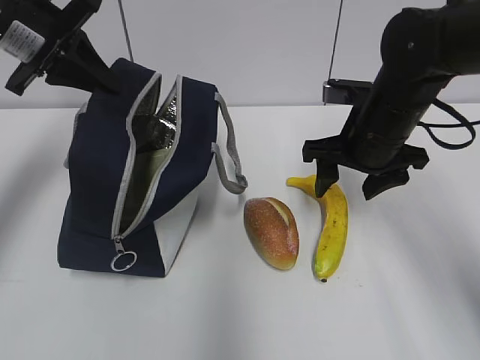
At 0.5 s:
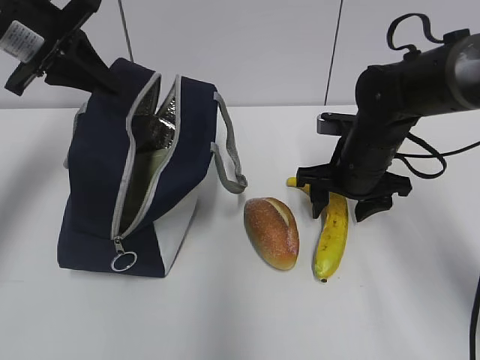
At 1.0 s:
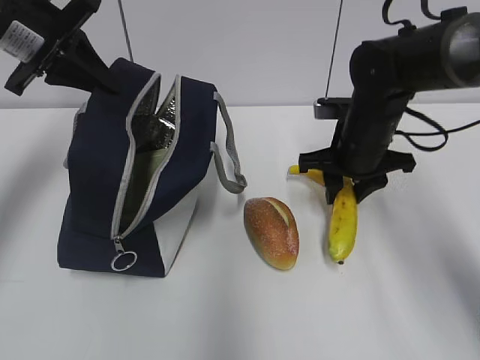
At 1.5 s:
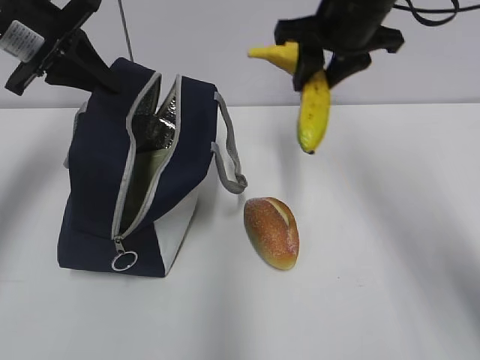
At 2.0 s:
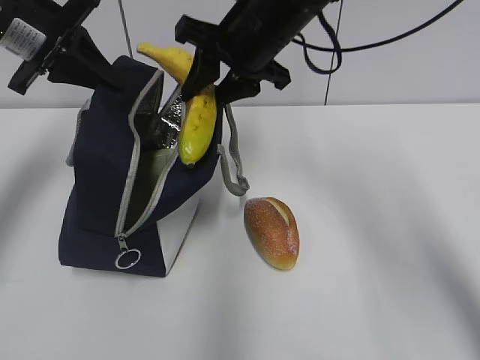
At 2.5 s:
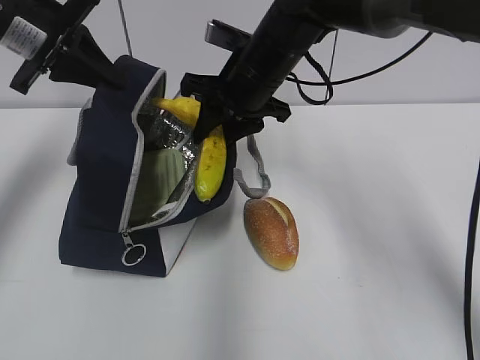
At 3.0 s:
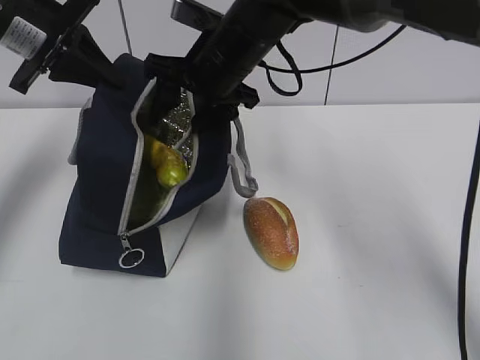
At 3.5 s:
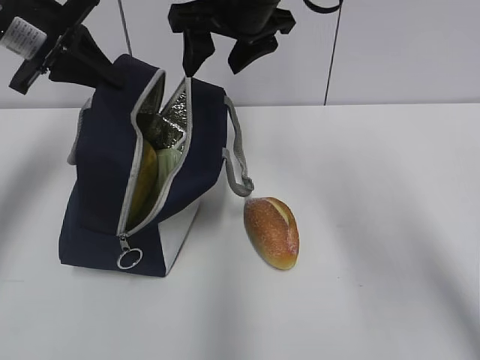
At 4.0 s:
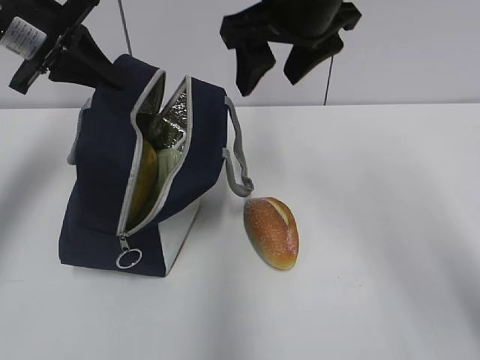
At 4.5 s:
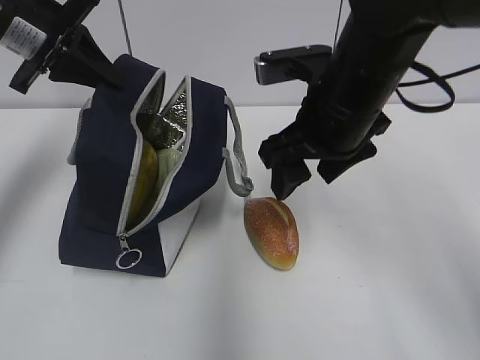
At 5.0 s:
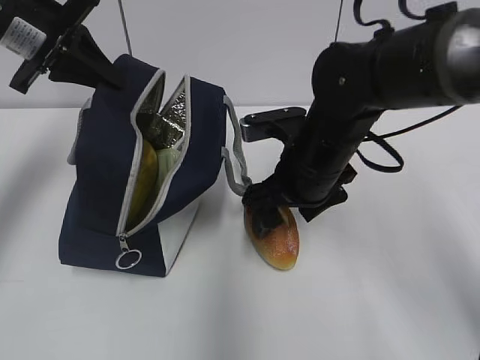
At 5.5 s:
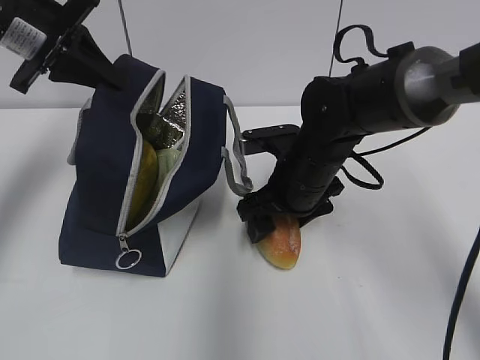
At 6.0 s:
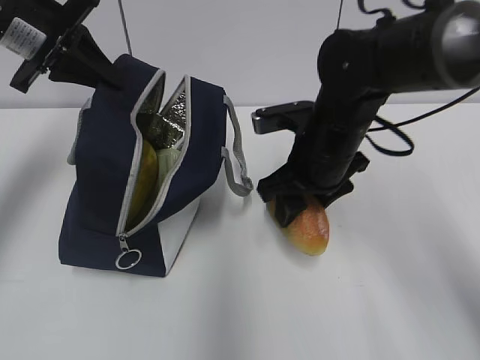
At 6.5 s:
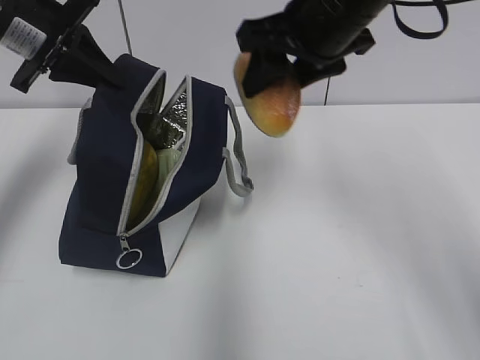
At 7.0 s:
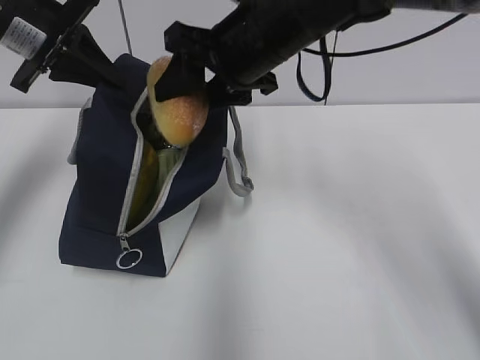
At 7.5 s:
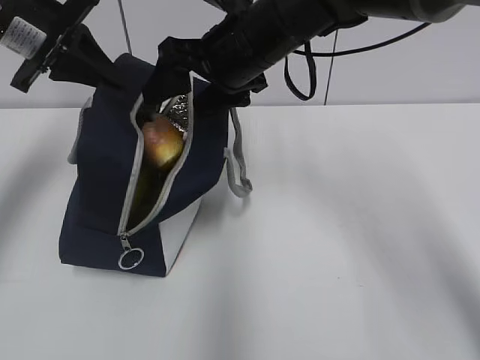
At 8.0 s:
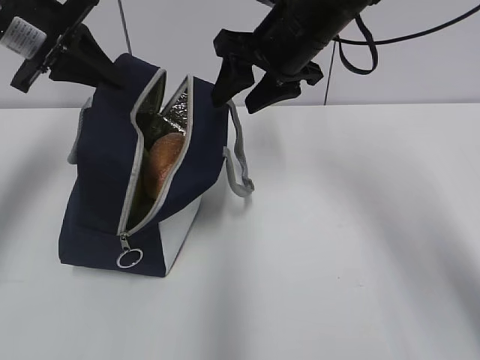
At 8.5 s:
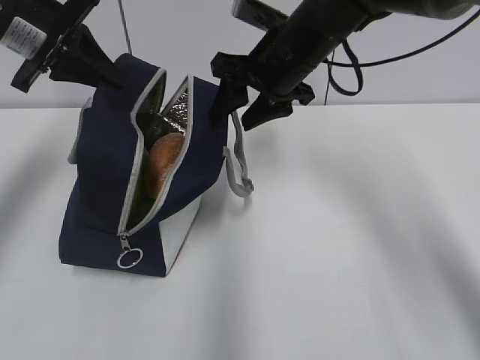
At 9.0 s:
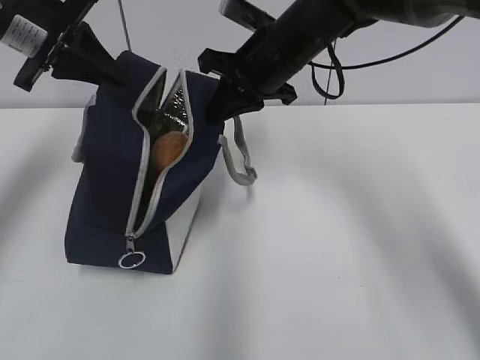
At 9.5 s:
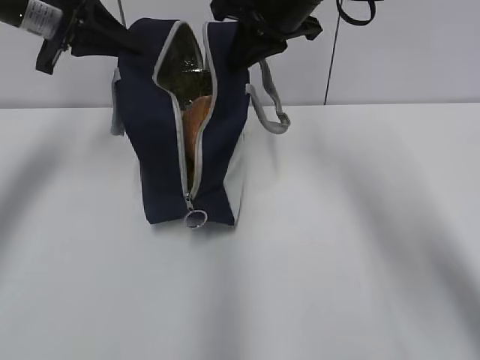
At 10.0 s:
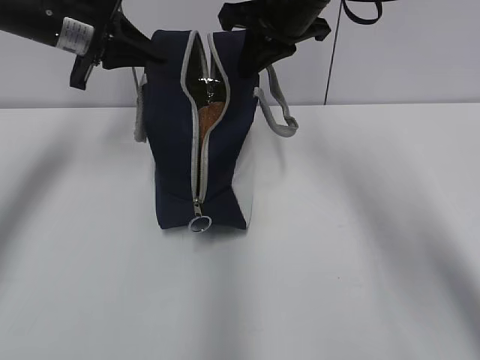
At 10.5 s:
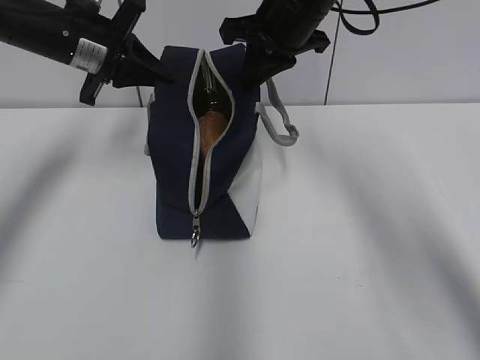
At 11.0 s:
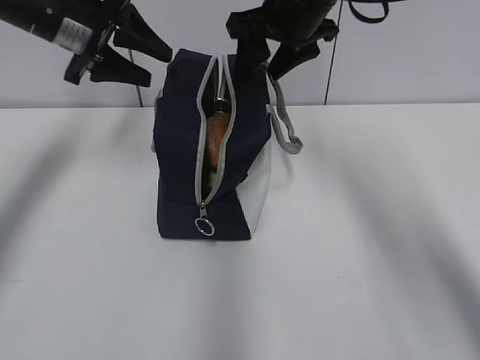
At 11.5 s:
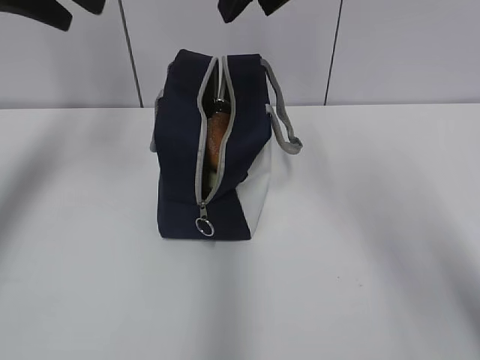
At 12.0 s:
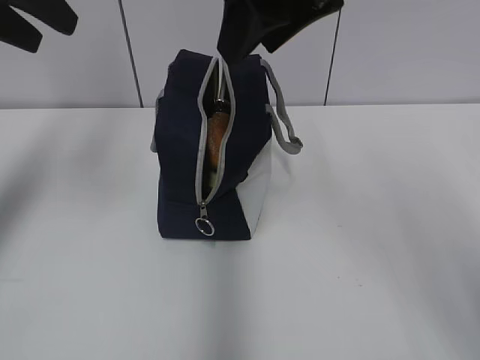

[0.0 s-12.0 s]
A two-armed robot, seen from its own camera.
Step, 1.0 to 3.0 s: Place it into the bag with your right hand.
Step, 3.5 to 5.5 s: Grab the bread with your right hand.
Step, 8.0 to 8.5 s: Grab the lunch bag with your right hand.
Step, 9.0 to 10.5 s: Move the lunch bag to the right.
0.0 to 2.0 s: The right gripper travels to the left, upward and forward by approximately 15 cm, and closes its fingers.
2.0 to 4.0 s: The right gripper moves upward, roughly 5 cm, and opens up.
4.0 to 6.0 s: The right gripper moves downward, about 15 cm.
6.0 to 8.0 s: The right gripper moves upward and forward, some 10 cm.
8.0 to 10.0 s: The right gripper closes.
10.0 to 12.0 s: The two grippers go roughly 15 cm backward and upward. The right gripper opens. Meanwhile the left gripper opens.

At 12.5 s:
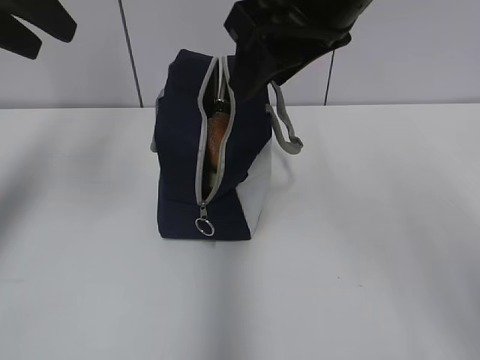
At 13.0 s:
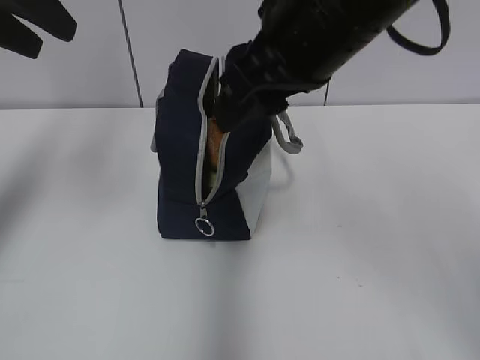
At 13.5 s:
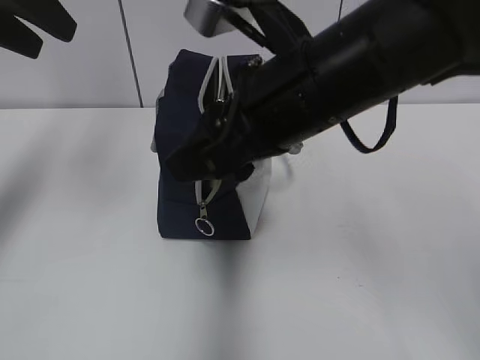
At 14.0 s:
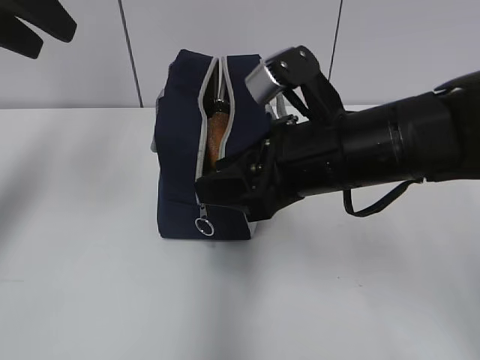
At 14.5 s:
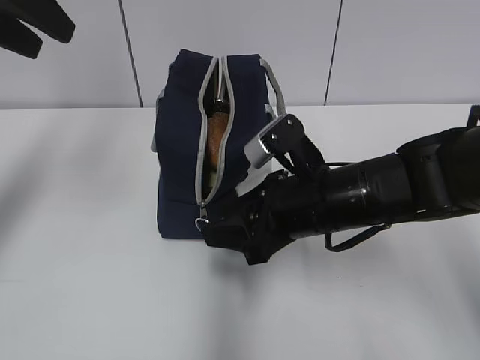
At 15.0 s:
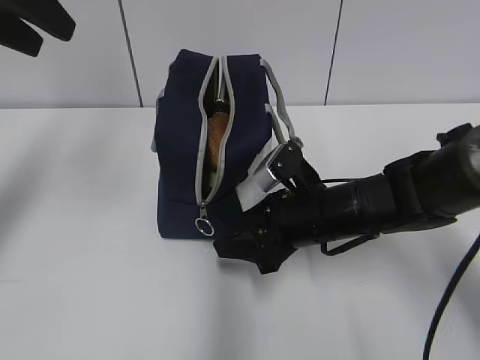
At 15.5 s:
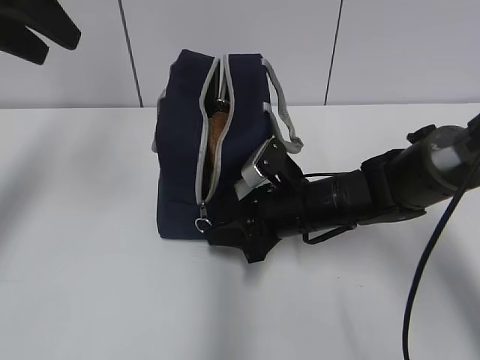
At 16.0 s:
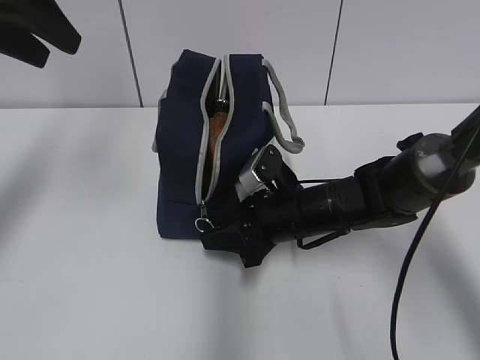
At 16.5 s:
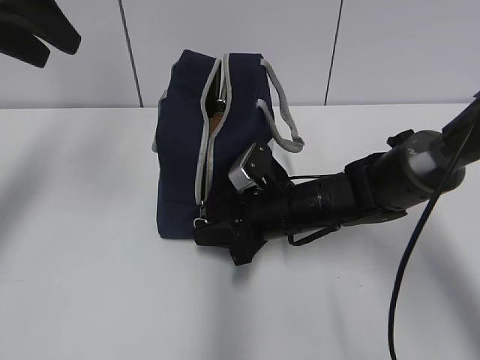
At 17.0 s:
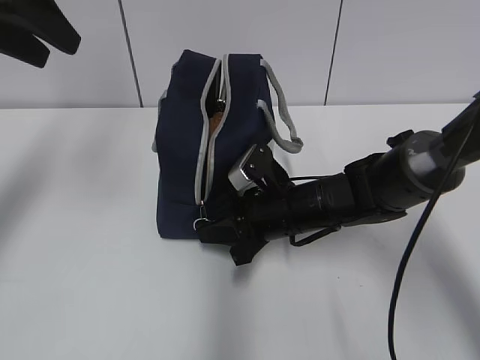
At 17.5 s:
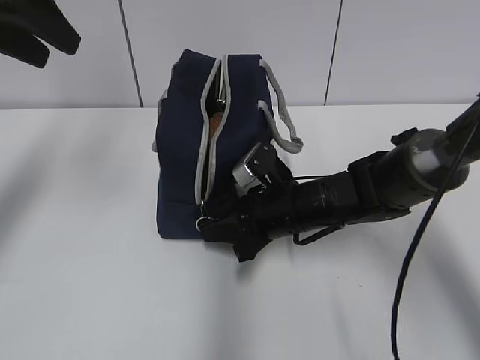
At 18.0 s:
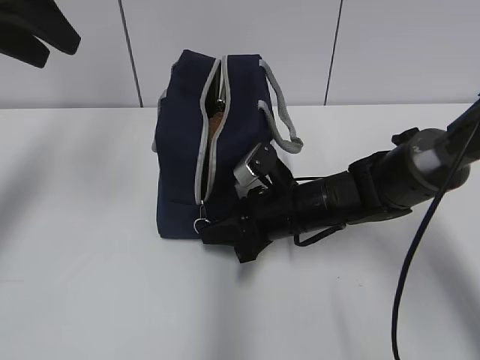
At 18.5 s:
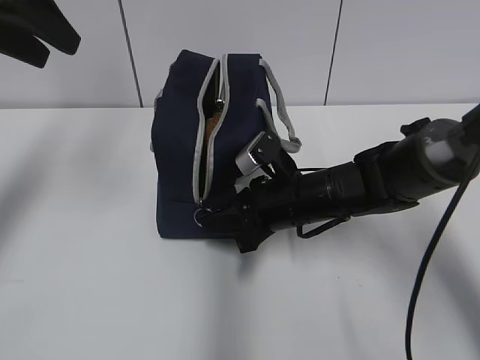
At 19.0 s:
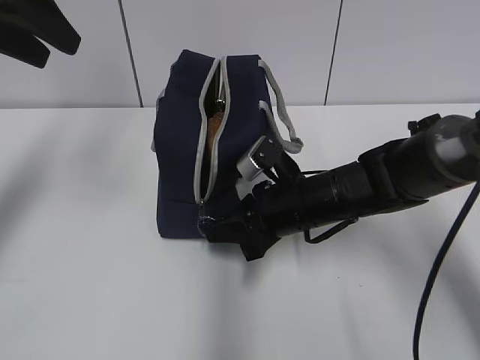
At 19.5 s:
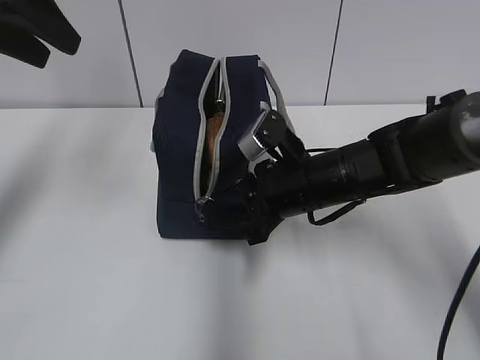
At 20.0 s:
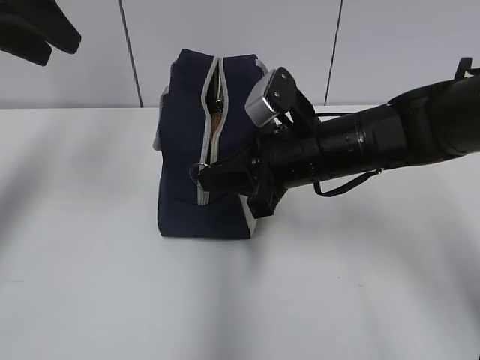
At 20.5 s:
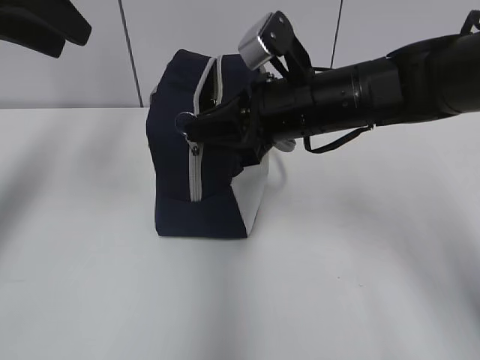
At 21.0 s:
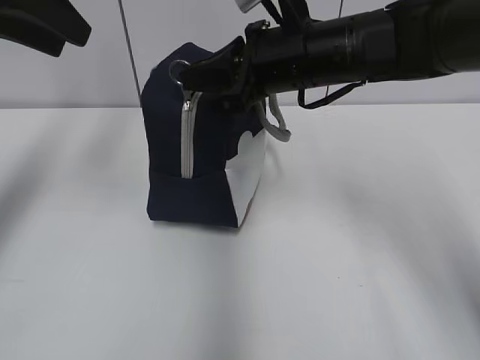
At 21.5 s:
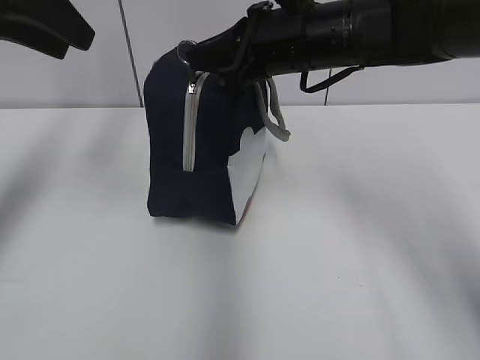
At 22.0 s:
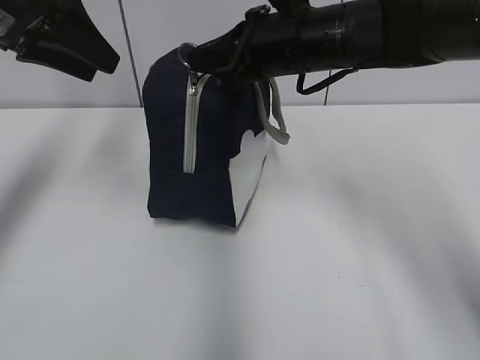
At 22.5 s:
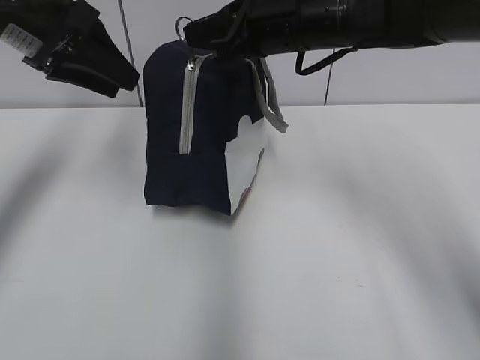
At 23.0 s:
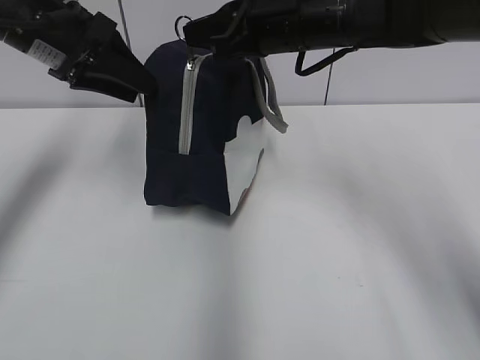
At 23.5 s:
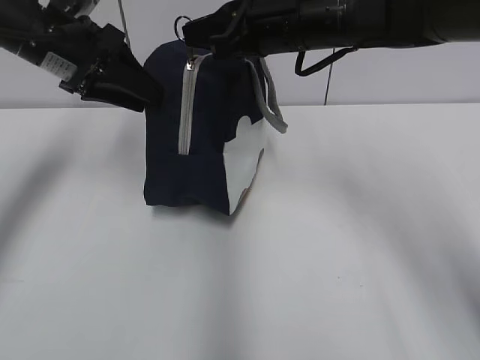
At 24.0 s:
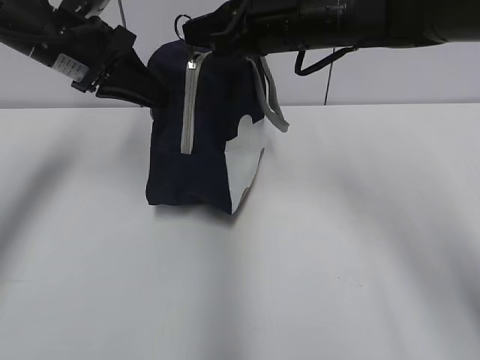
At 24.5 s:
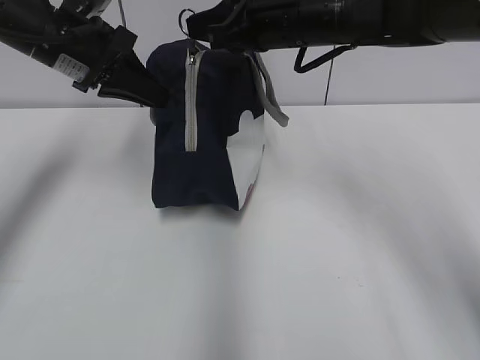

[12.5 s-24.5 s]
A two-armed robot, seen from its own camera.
12.5 to 14.5 s: The right gripper heads downward, covering approximately 20 cm.
14.5 to 16.5 s: The right gripper goes about 10 cm downward and forward.
16.5 to 18.5 s: The grippers move only a little.
18.5 to 20.5 s: The right gripper goes approximately 15 cm upward.
20.5 to 22.5 s: The left gripper moves downward, some 5 cm. Meanwhile the right gripper moves upward, roughly 5 cm.
22.5 to 24.5 s: The left gripper moves some 5 cm, and closes.

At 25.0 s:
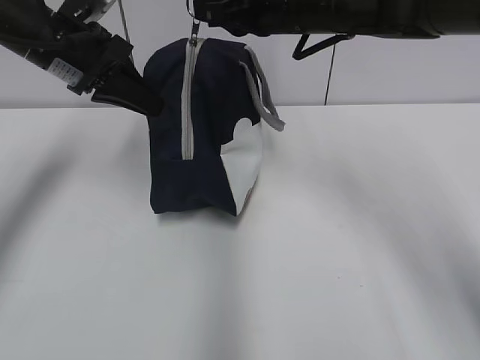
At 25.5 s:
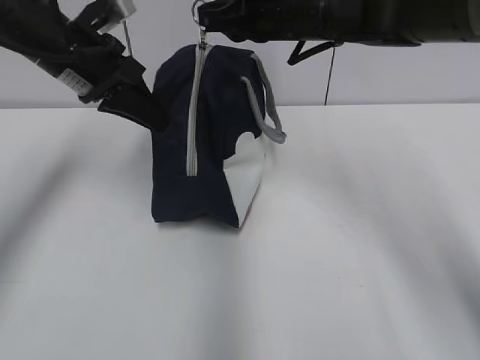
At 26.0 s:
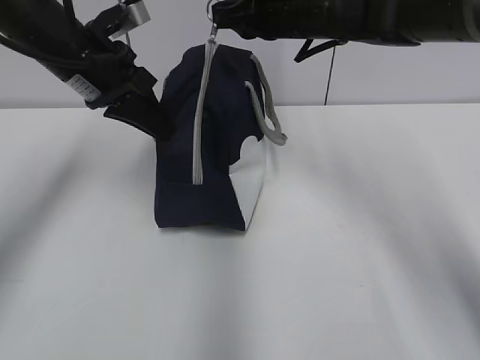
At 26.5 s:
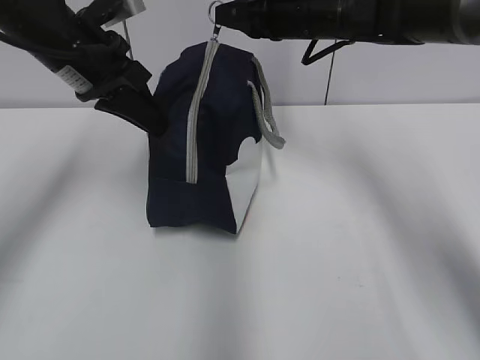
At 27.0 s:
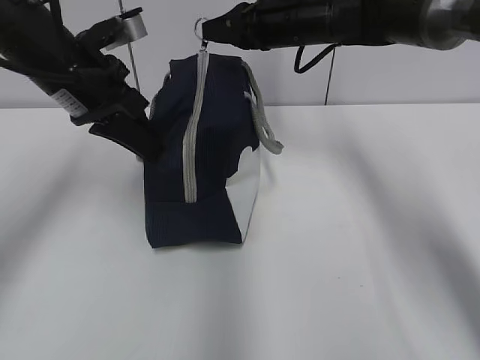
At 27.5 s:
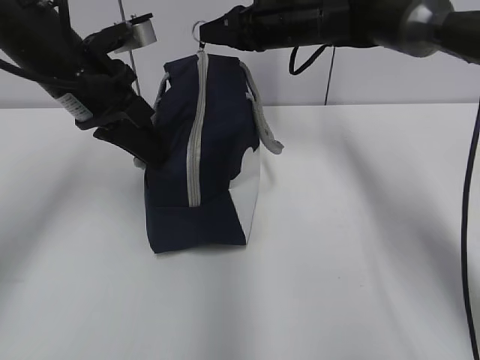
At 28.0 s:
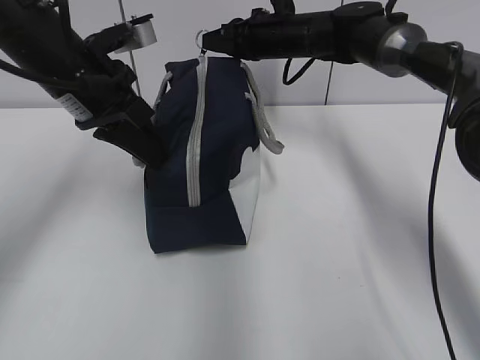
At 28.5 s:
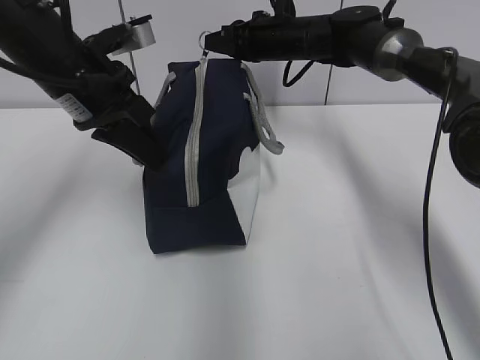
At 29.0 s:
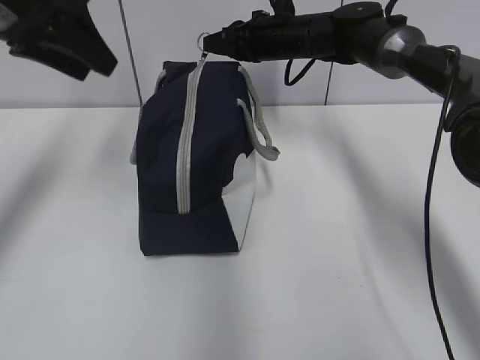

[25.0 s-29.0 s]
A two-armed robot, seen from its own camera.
Step, 25.0 to 28.5 s: Grab the lunch bag with your left hand.
25.0 to 27.0 s: The right gripper shifts approximately 10 cm forward, while the left gripper ends up about 5 cm from where it was.
27.0 to 29.0 s: The left gripper is displaced upward by about 10 cm, and opens up. Meanwhile the right gripper goes some 5 cm forward.
